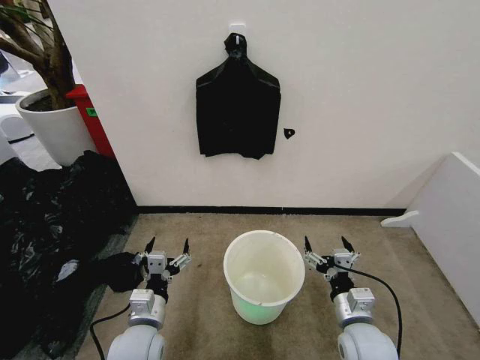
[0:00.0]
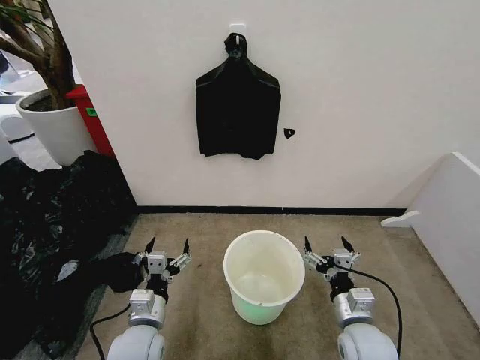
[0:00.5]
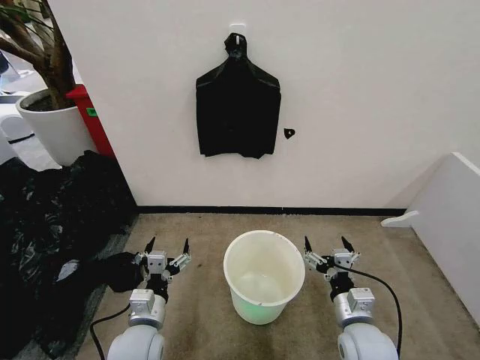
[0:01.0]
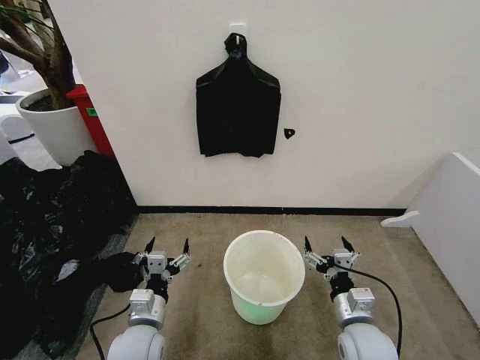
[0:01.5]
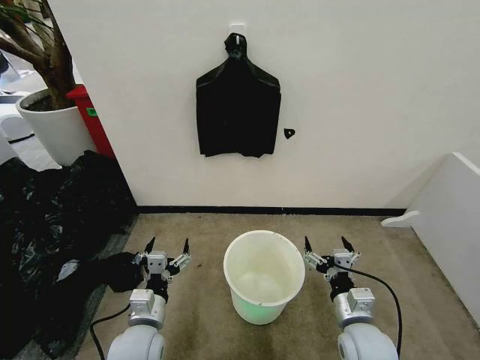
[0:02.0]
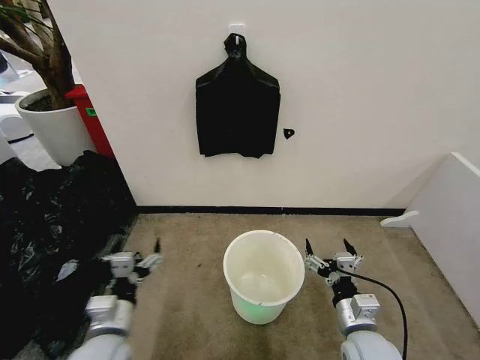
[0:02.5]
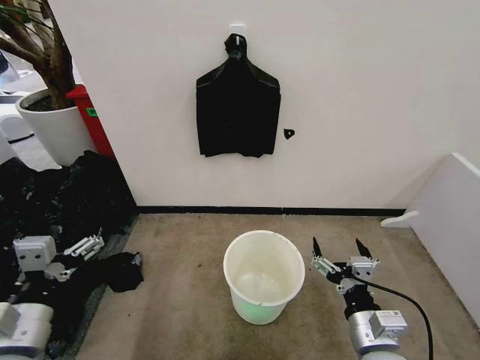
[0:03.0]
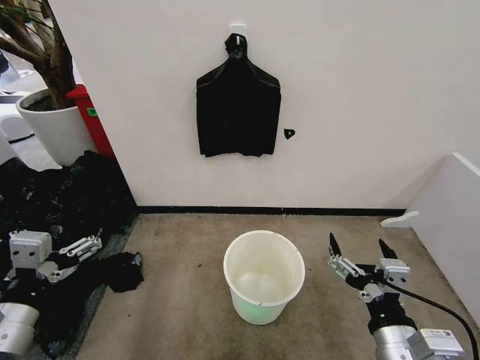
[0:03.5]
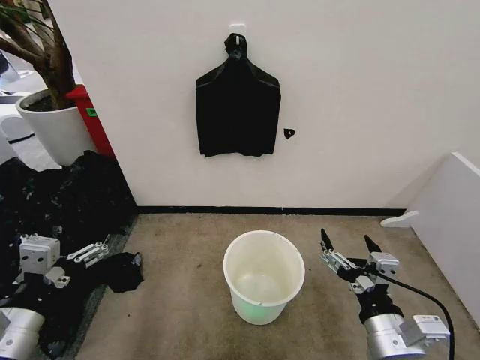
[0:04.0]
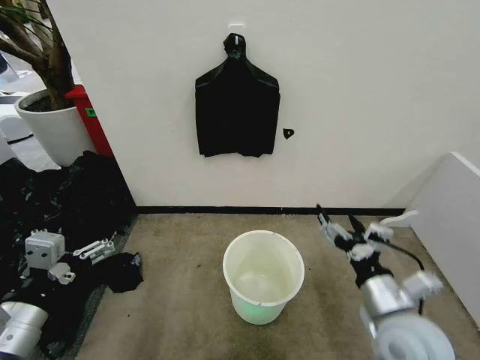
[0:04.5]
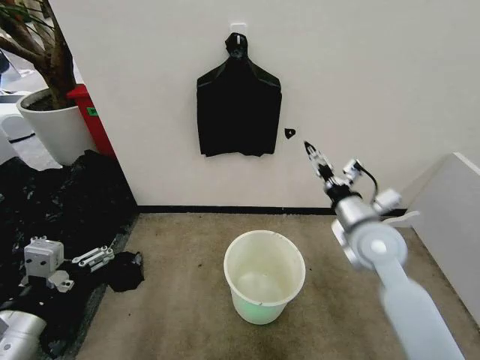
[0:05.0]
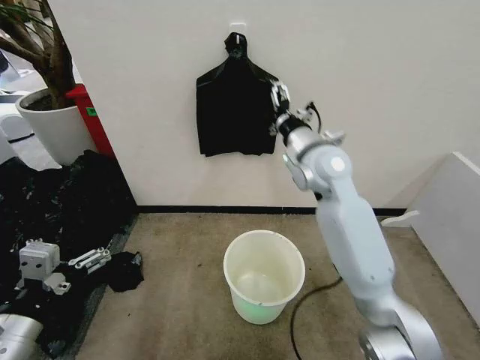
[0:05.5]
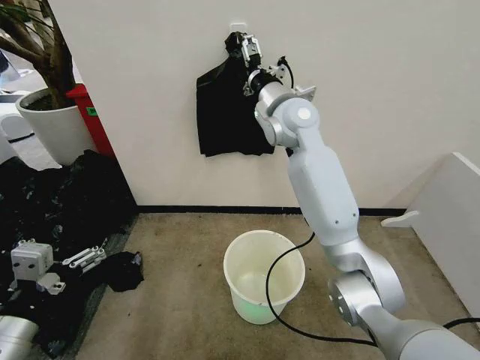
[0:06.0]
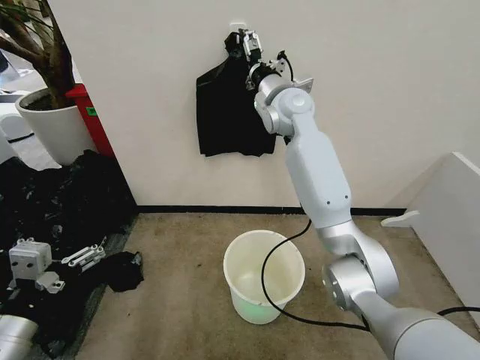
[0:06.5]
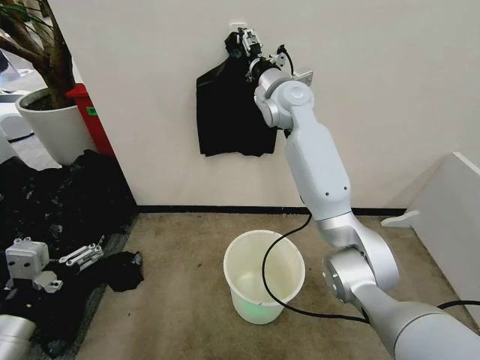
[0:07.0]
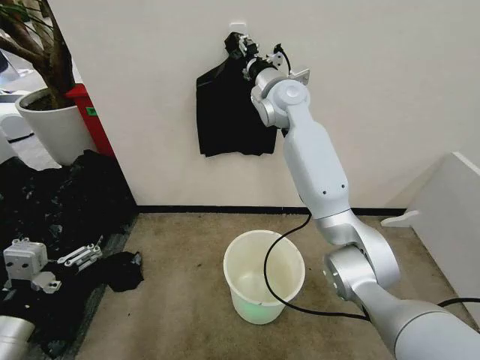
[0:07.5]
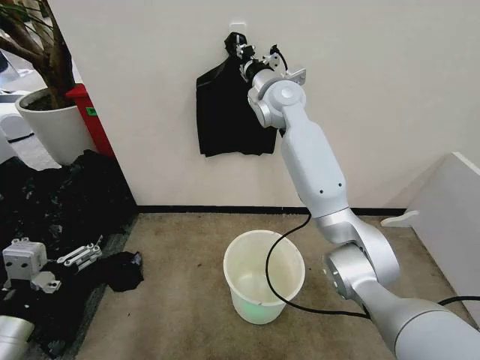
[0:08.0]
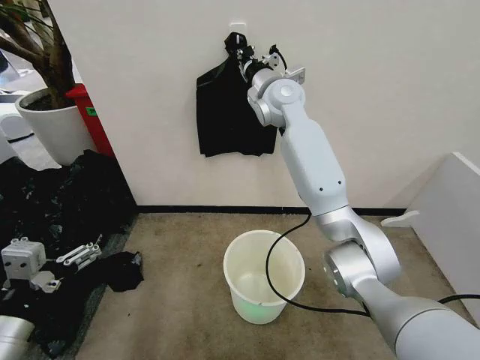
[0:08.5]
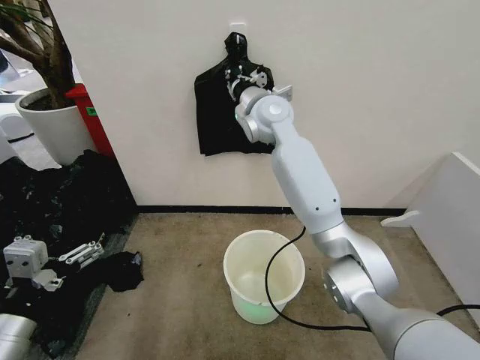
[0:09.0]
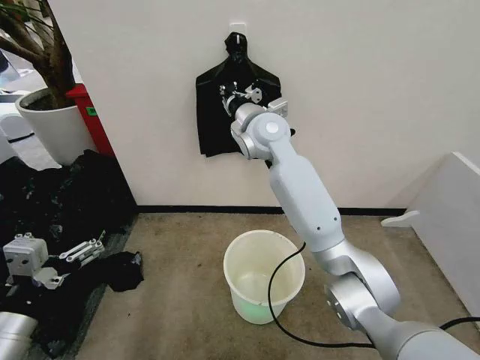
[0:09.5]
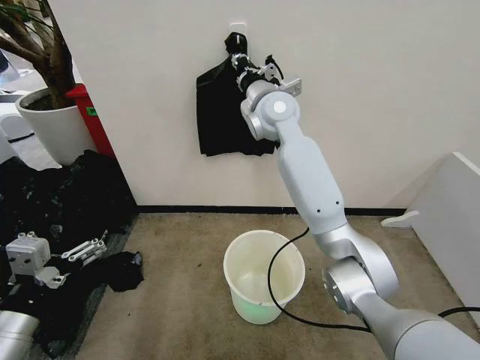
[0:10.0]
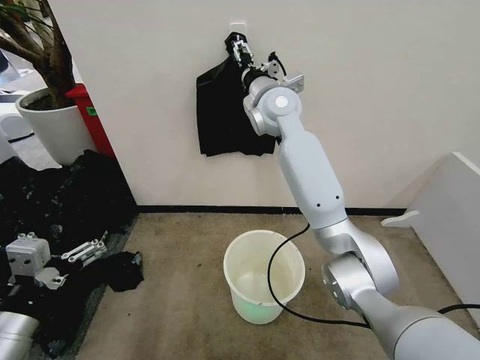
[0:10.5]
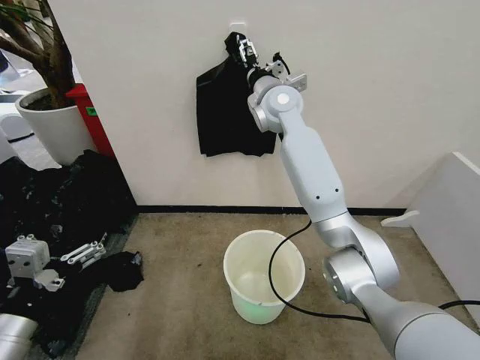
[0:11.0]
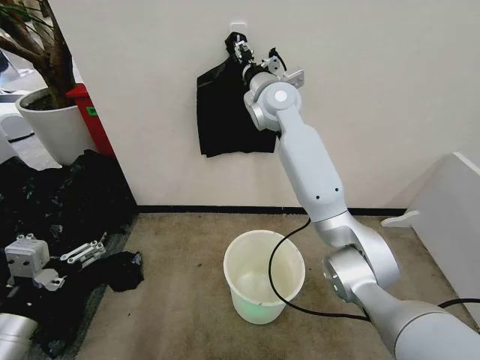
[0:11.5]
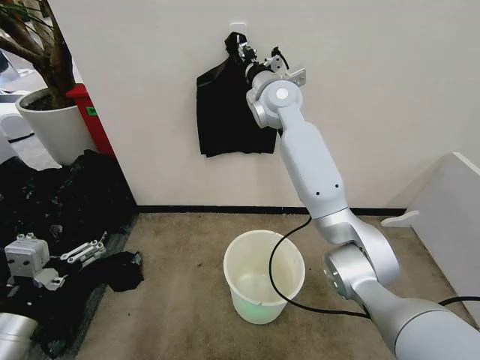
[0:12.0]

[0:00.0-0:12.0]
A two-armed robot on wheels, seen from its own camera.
Task of the whole recording: Place the garbage bag over the trash bin.
0:02.0 to 0:04.0: The right gripper shifts some 15 cm upward and backward. Meanwhile the left gripper moves upward, to the left and backward, about 25 cm.
0:04.0 to 0:06.0: The right gripper is displaced forward and upward by some 50 cm.
0:06.0 to 0:08.0: The right gripper goes roughly 5 cm forward, and closes.
0:10.0 to 0:12.0: The right gripper opens, then closes again.

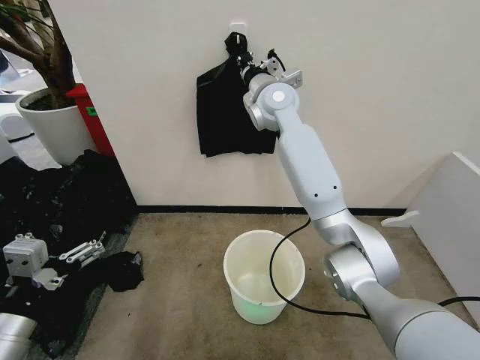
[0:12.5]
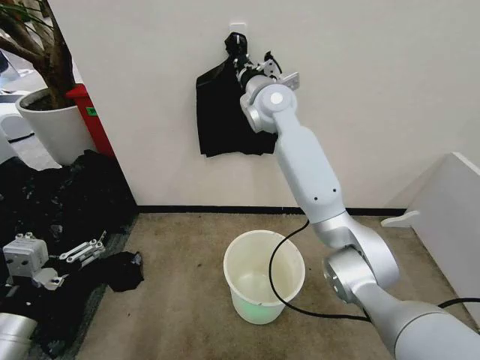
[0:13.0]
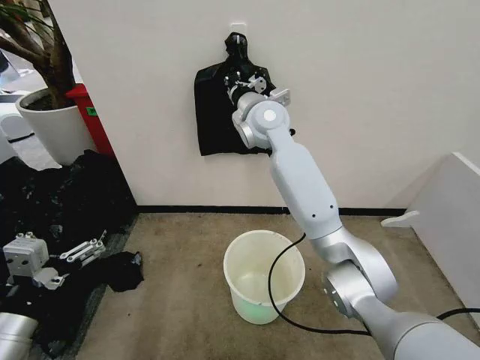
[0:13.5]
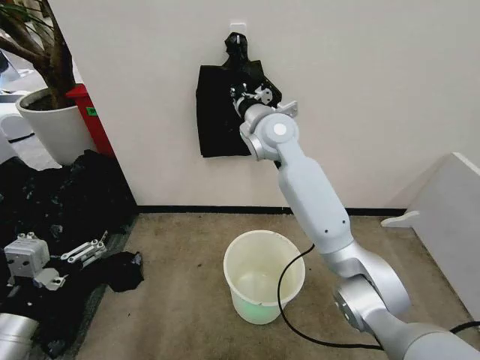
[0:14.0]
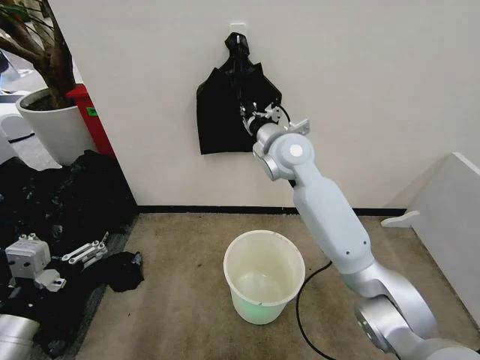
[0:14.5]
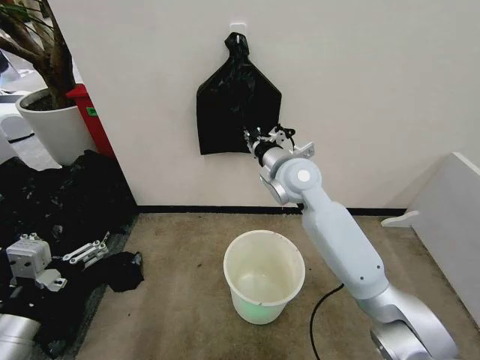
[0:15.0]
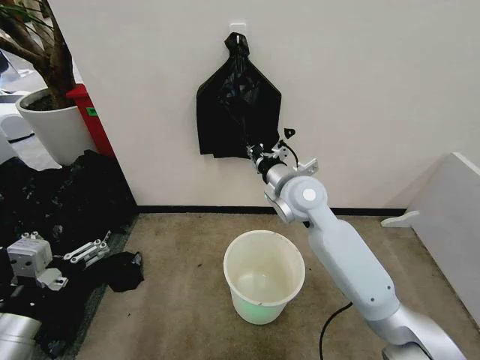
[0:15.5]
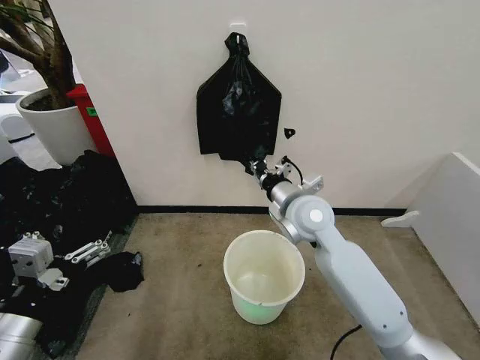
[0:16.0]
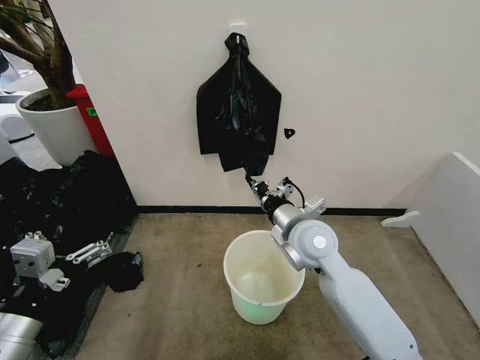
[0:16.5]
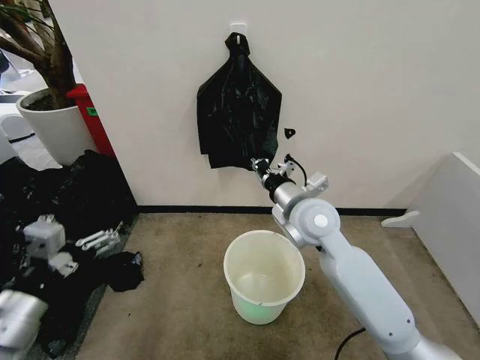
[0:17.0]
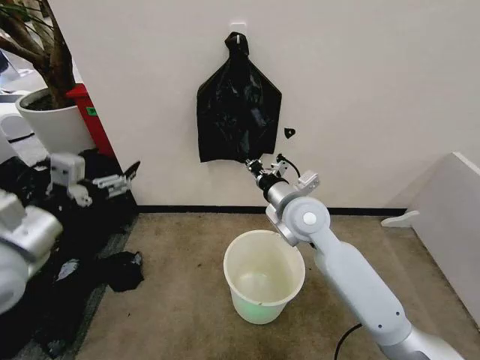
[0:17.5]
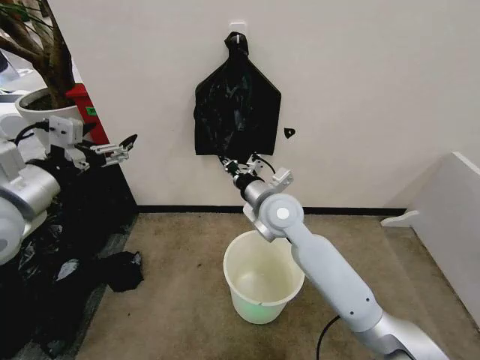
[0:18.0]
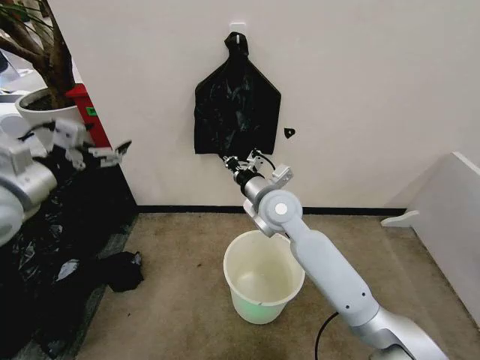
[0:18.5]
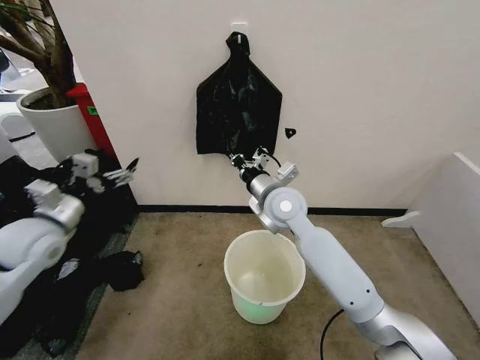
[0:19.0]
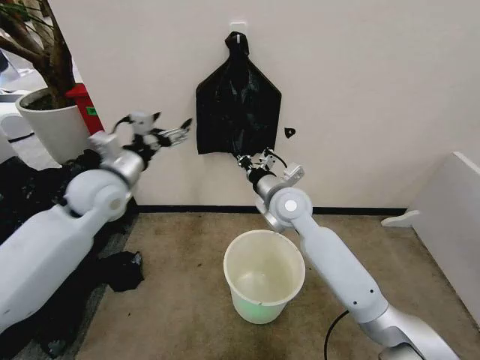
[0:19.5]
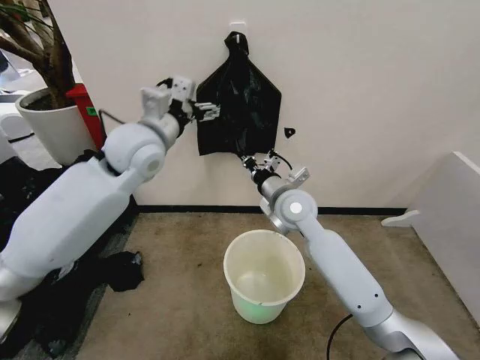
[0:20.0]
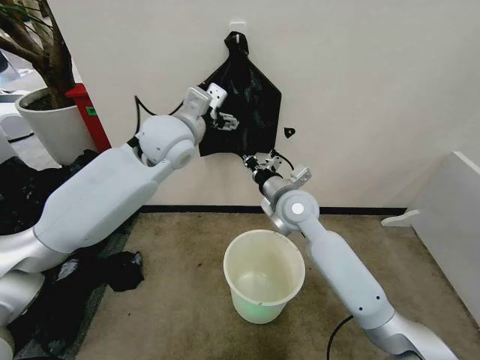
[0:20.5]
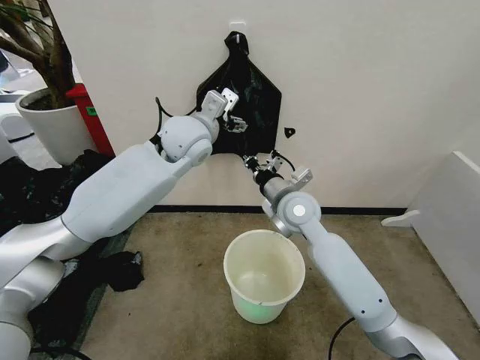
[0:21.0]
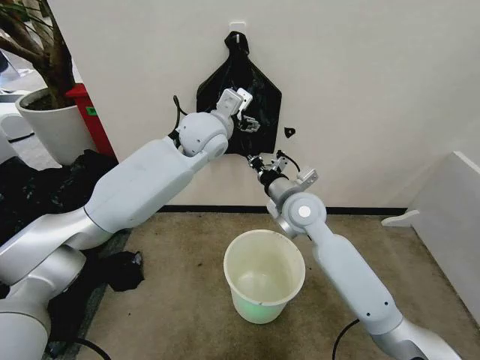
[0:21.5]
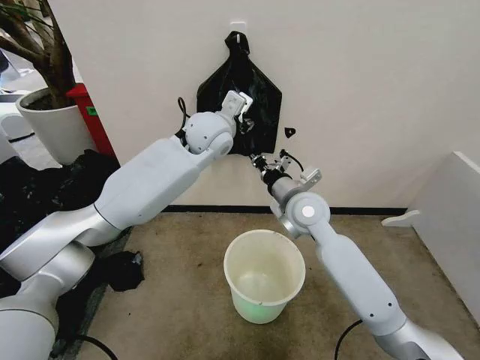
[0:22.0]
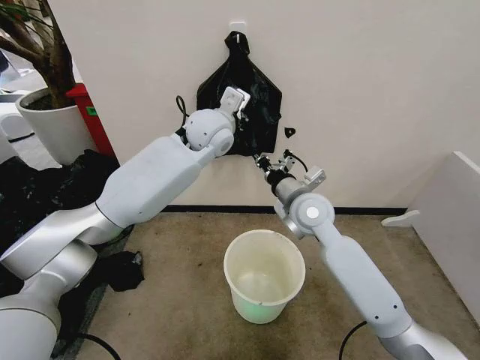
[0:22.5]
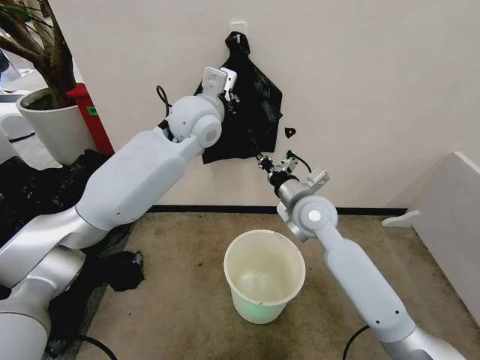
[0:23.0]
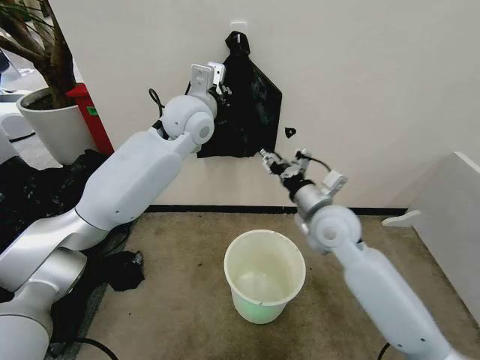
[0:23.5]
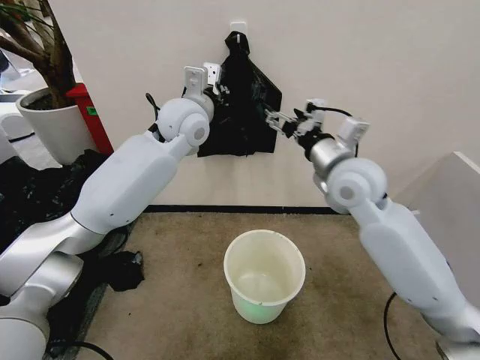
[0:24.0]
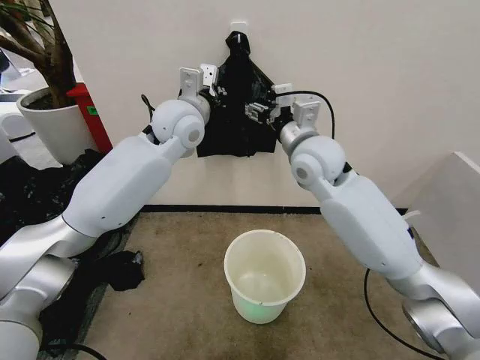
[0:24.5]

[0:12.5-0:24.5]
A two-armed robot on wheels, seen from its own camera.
Task of the whole recording: Place the garbage bag over the trash bin.
0:12.5 to 0:14.5: The right gripper heads backward and downward, covering some 10 cm.
0:14.5 to 0:16.5: The right gripper is displaced backward and downward by some 20 cm.
0:16.5 to 0:18.5: The right gripper travels forward and to the left by some 10 cm. Meanwhile the left gripper heads forward and upward, covering roughly 25 cm.
0:18.5 to 0:20.5: The left gripper moves to the right and forward, some 30 cm.
0:20.5 to 0:22.5: The left gripper shifts roughly 10 cm to the right and forward, and closes its fingers.
0:22.5 to 0:24.5: The right gripper is displaced upward by some 10 cm, and opens its fingers; the left gripper goes some 5 cm to the left.

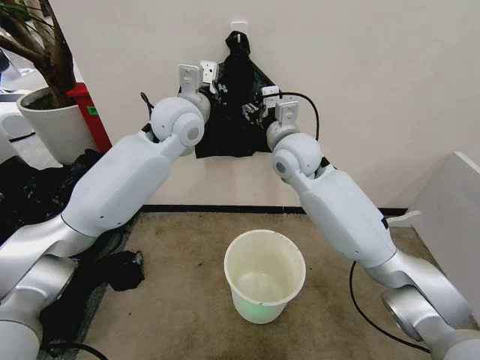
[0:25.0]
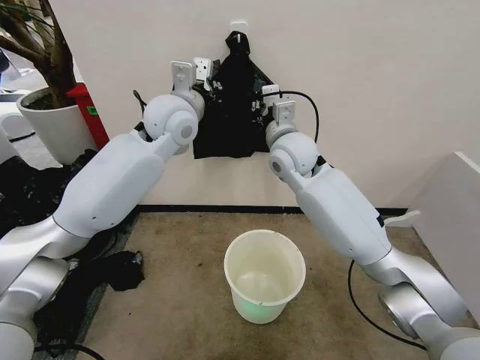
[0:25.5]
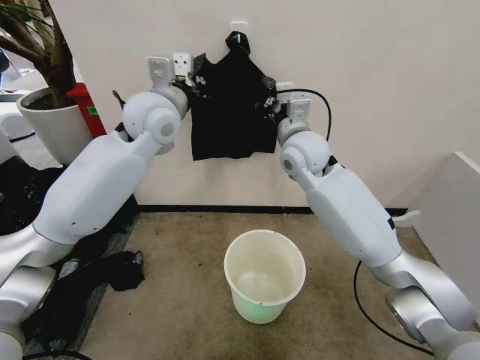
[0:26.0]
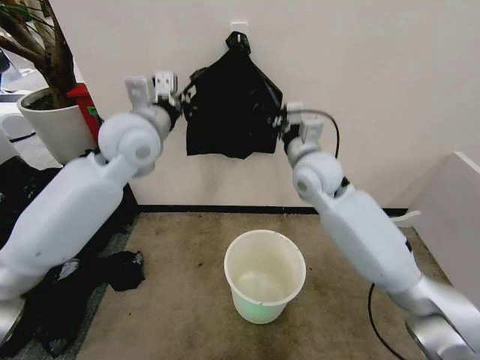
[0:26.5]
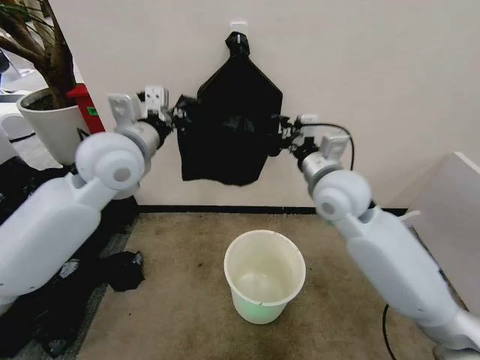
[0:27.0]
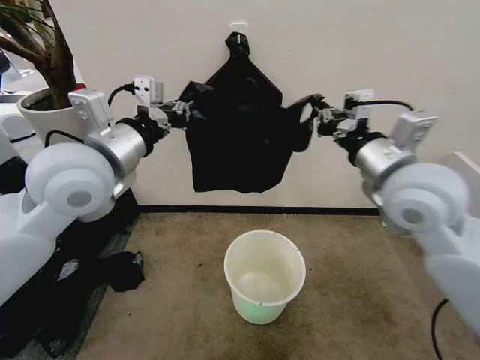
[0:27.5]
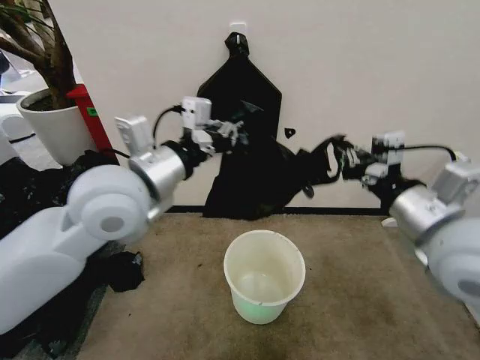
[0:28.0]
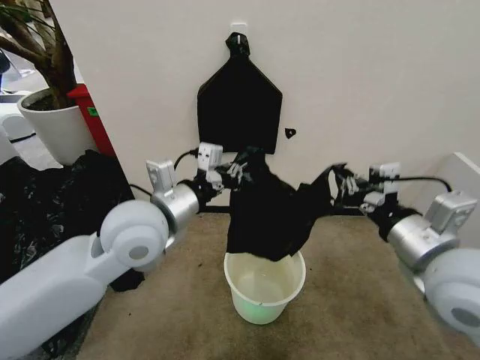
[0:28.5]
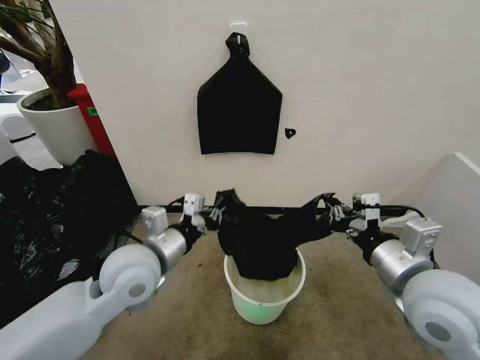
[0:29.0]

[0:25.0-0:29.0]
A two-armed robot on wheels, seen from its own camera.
Task of the whole recording: Place the garbage bag over the trash bin.
0:25.0 to 0:27.0: The left gripper goes approximately 15 cm backward and to the left. The right gripper is displaced backward and to the right by about 10 cm, and closes.
0:27.0 to 0:29.0: The right gripper heads backward and to the right, covering approximately 20 cm. The left gripper travels downward and backward by some 20 cm.
